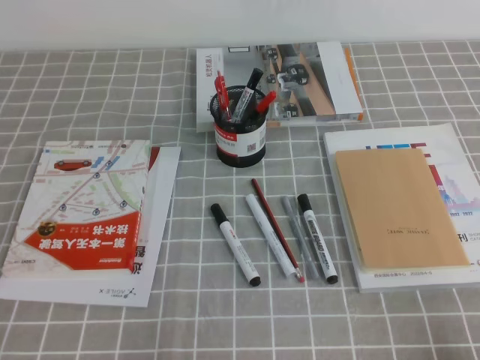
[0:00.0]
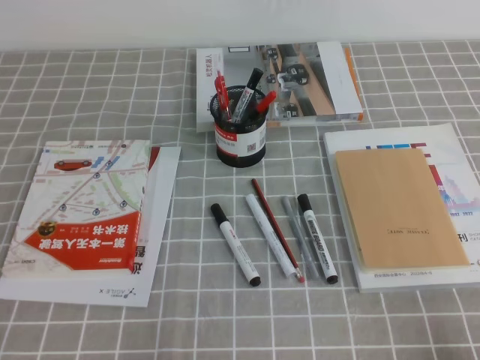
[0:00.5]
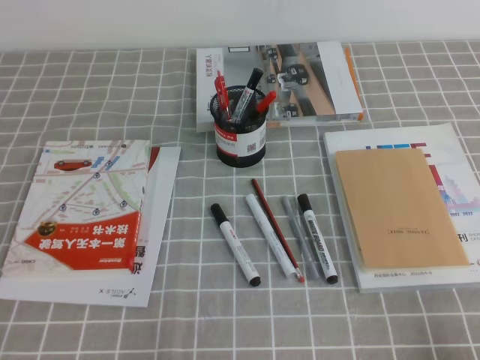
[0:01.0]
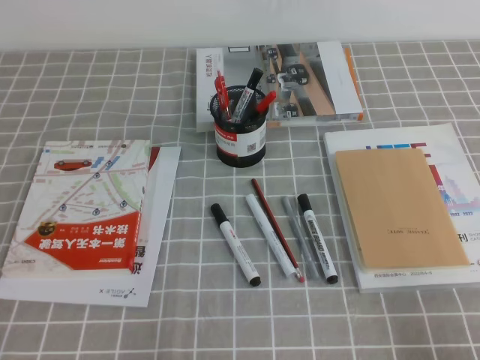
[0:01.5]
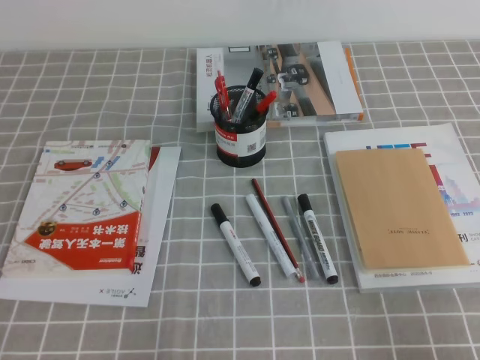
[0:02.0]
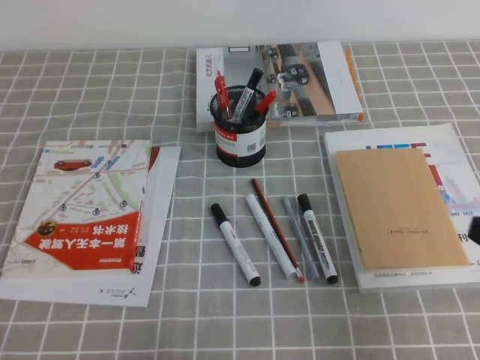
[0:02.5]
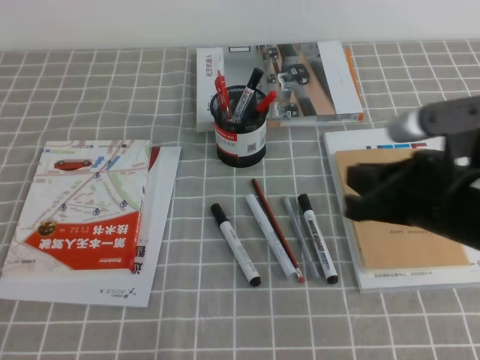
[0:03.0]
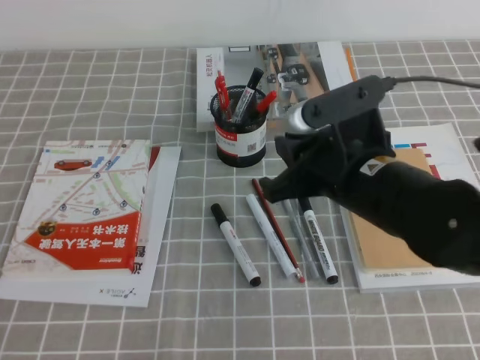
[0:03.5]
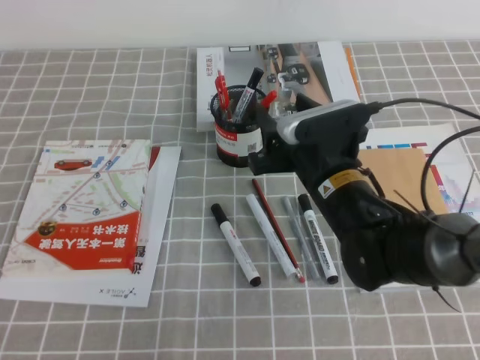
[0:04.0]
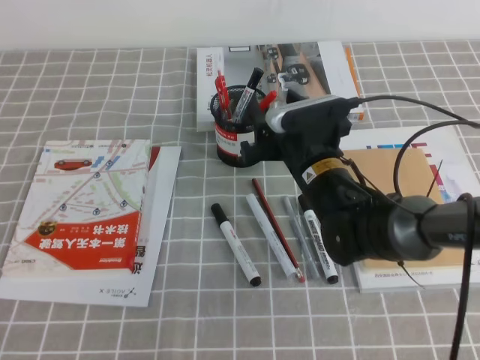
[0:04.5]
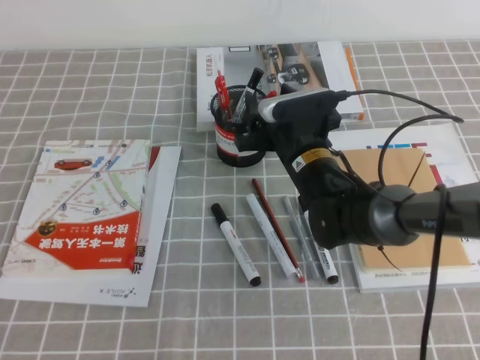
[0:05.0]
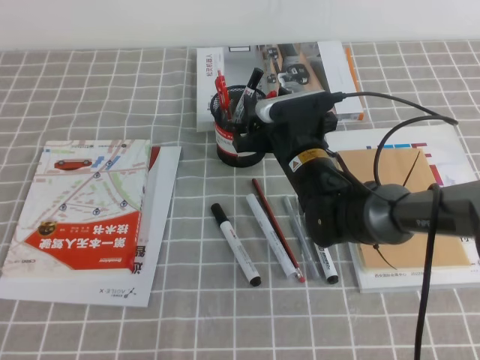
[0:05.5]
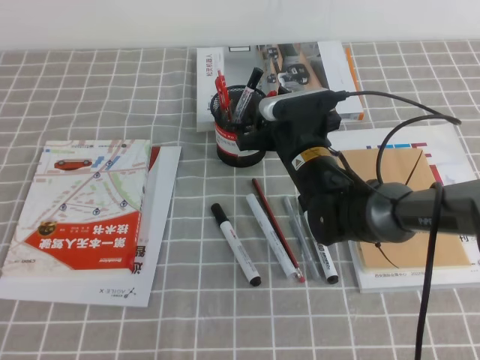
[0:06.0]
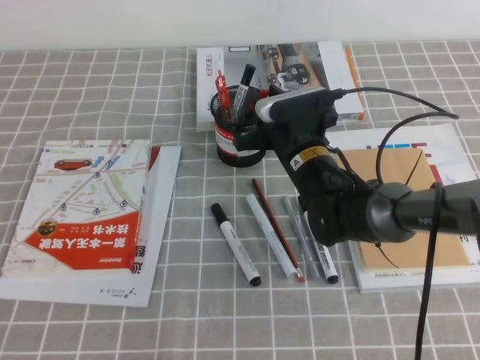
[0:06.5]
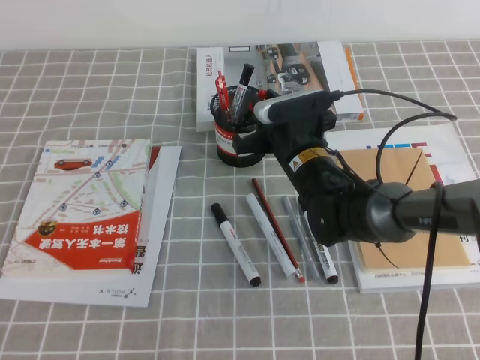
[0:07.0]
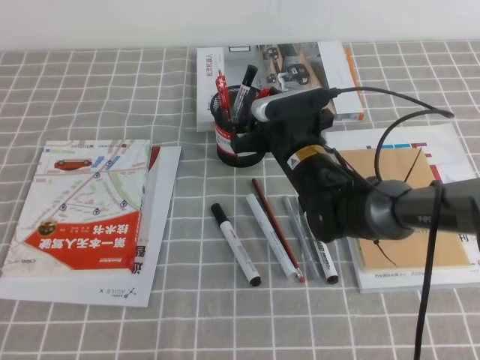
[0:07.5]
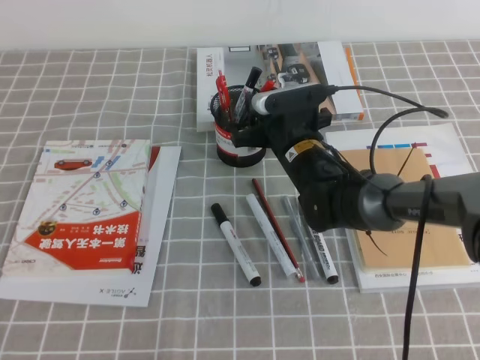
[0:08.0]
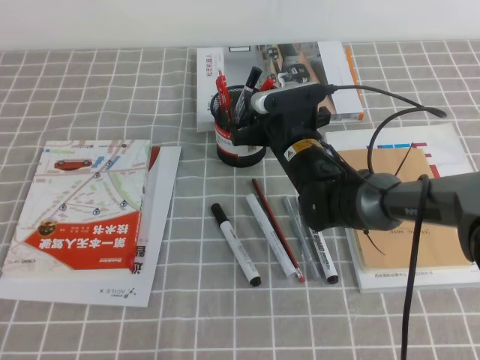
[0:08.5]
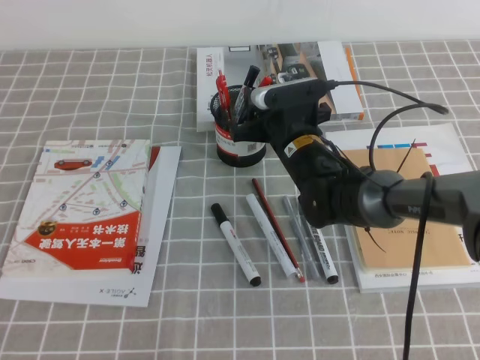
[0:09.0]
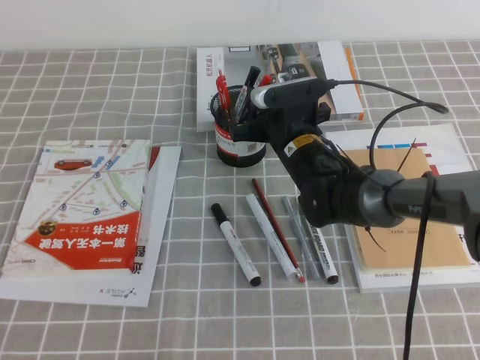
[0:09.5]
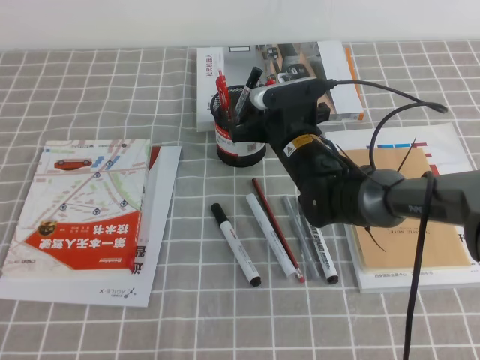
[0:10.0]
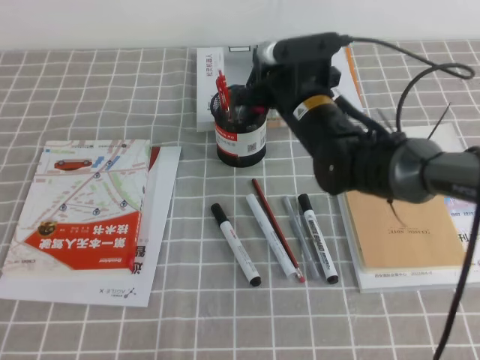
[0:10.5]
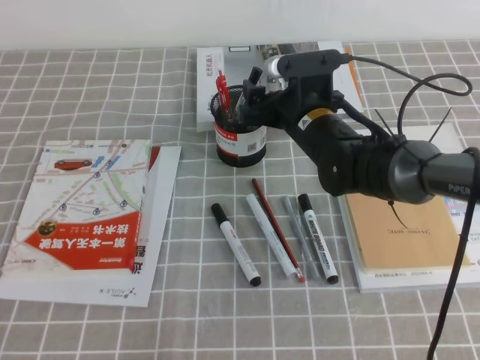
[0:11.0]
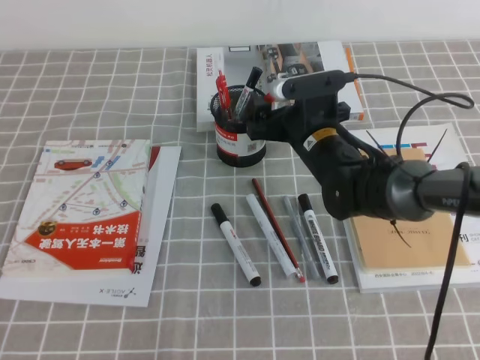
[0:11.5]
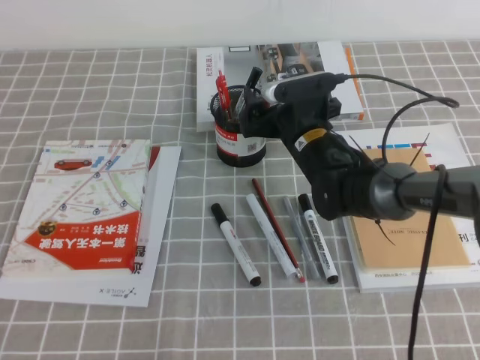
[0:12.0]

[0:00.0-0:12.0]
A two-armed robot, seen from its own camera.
0:02.0 to 0:04.0: The right gripper shifts approximately 35 cm forward and to the left, and opens up.
0:04.0 to 0:06.0: The right gripper heads forward, covering some 10 cm.
0:06.0 to 0:08.0: There are only small adjustments of the grippers.
0:08.0 to 0:10.0: The right gripper closes.
0:10.0 to 0:12.0: The right gripper opens up.

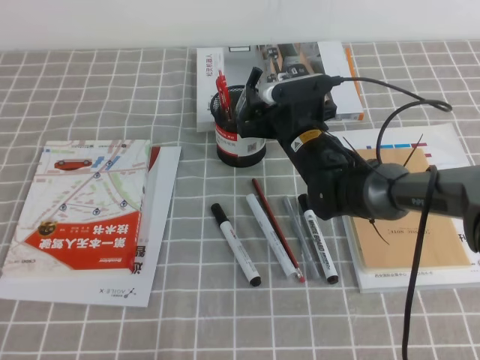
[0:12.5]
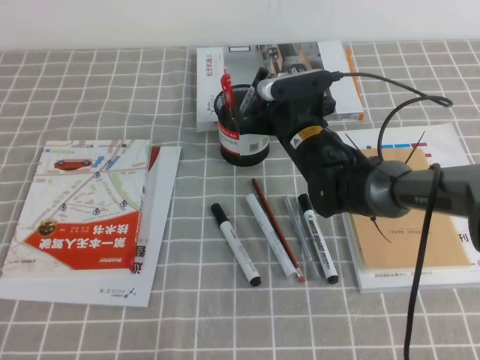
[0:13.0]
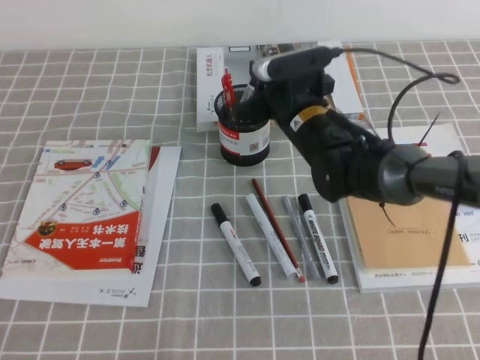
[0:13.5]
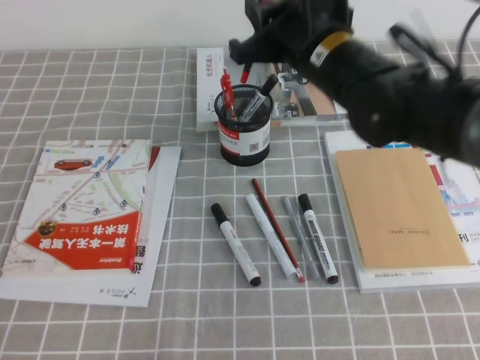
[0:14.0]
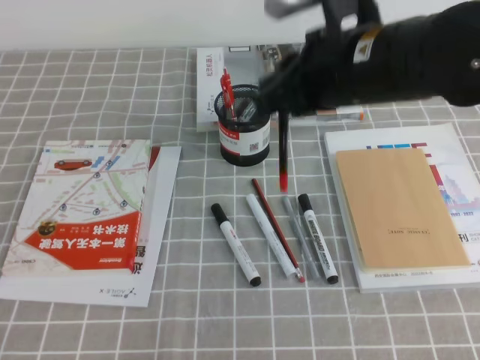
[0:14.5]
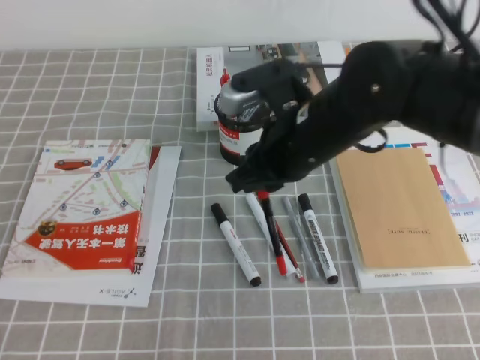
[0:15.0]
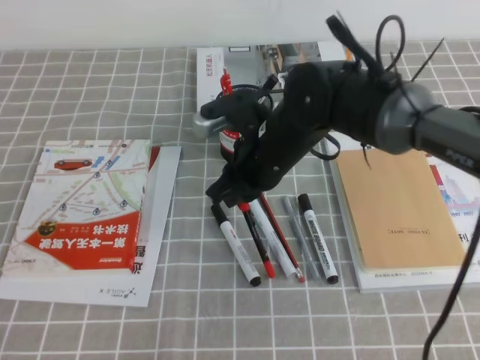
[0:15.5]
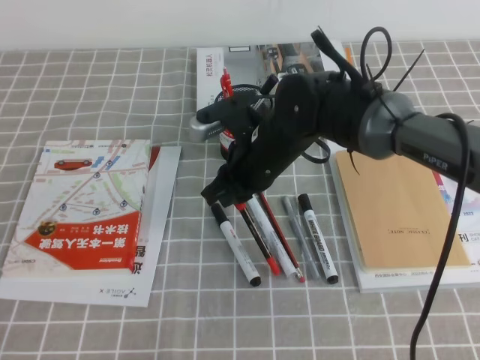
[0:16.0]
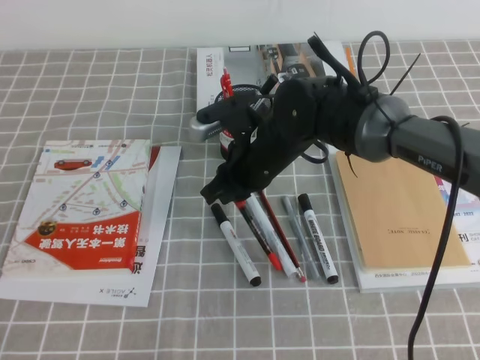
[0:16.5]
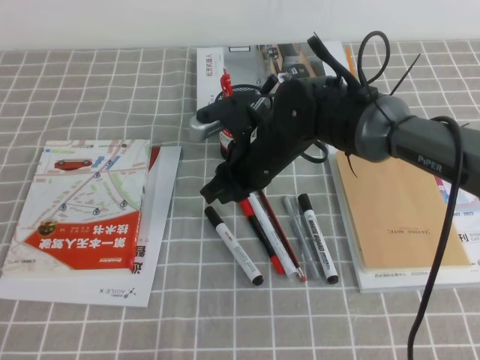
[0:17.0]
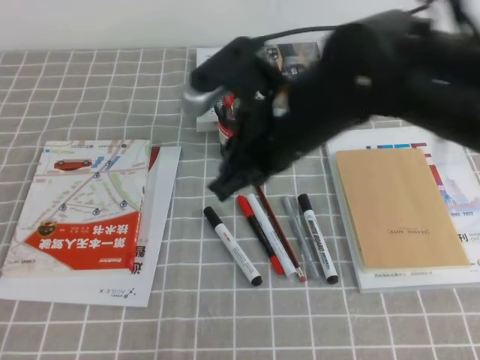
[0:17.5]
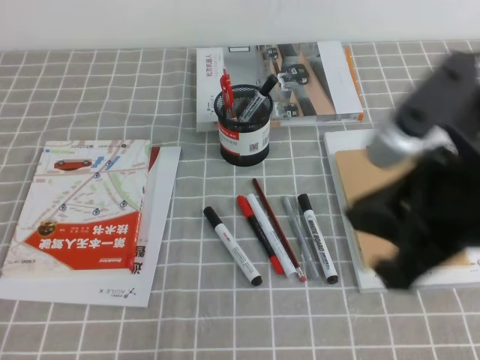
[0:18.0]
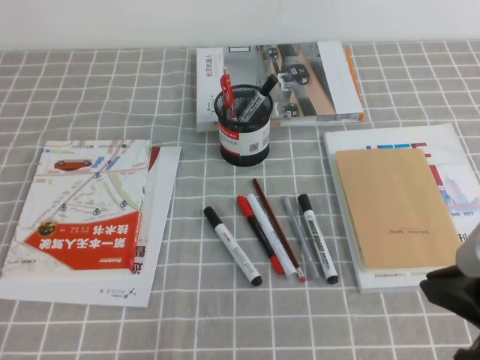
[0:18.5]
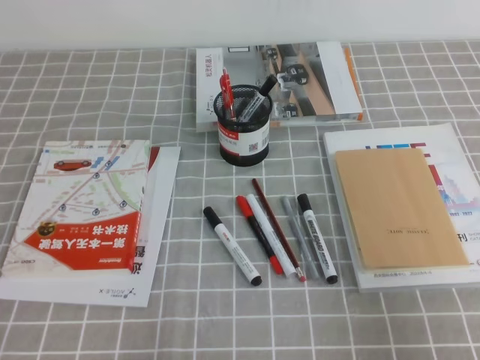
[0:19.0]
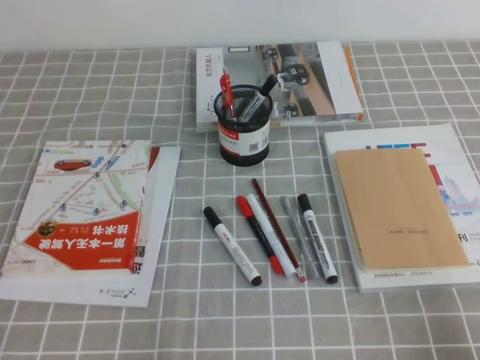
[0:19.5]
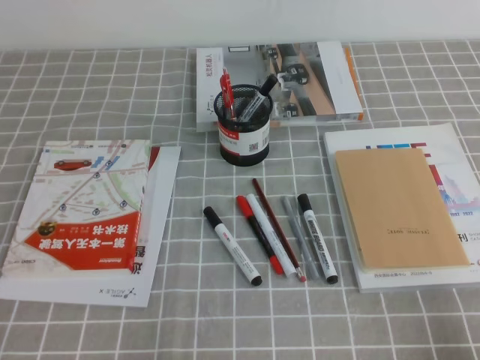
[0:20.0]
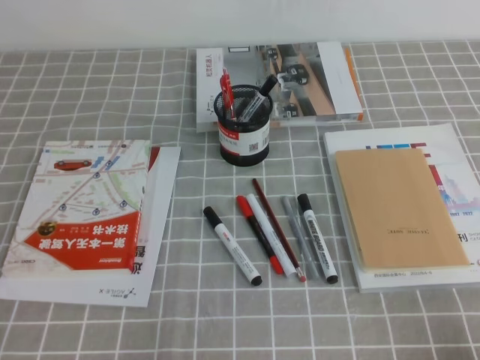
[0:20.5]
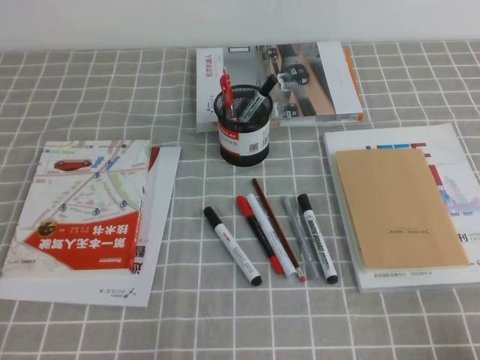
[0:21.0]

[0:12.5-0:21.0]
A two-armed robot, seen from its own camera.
Step, 0:12.5 to 0:21.0: Pick up the pen from the pen holder.
0:12.5 to 0:14.5: The right gripper heads upward and backward, covering about 25 cm, and closes.
0:14.5 to 0:16.5: The right gripper goes some 20 cm downward, to the left and forward.
0:16.5 to 0:19.0: The right gripper heads to the right and backward, covering some 35 cm.
0:19.0 to 0:21.0: The right gripper is displaced downward and backward by about 10 cm.

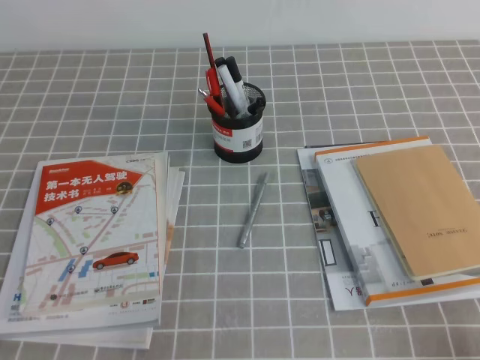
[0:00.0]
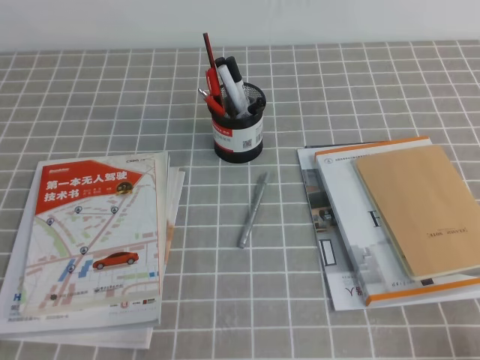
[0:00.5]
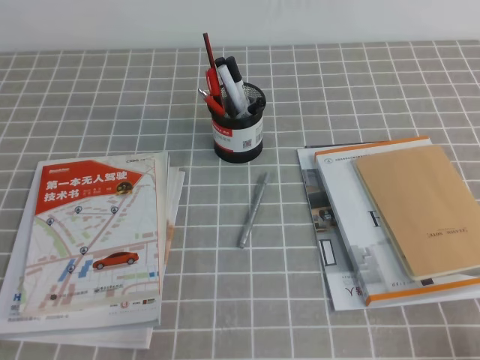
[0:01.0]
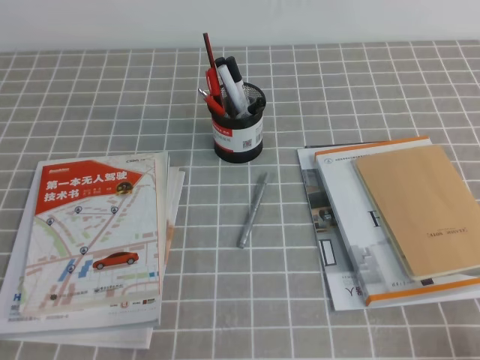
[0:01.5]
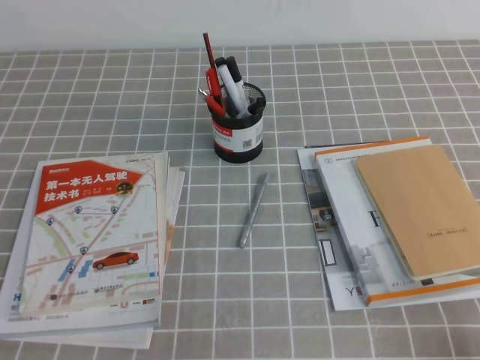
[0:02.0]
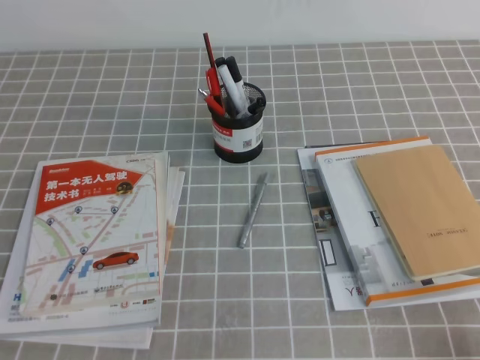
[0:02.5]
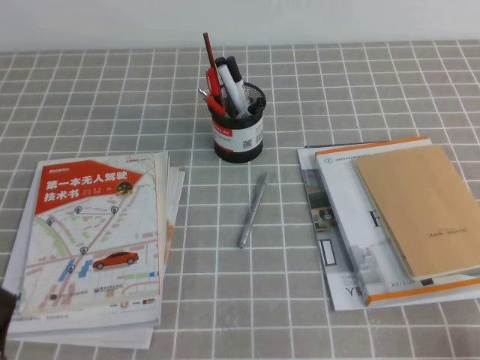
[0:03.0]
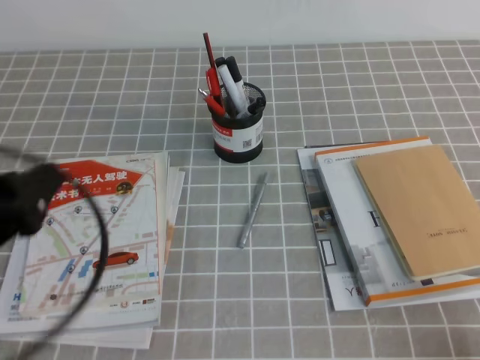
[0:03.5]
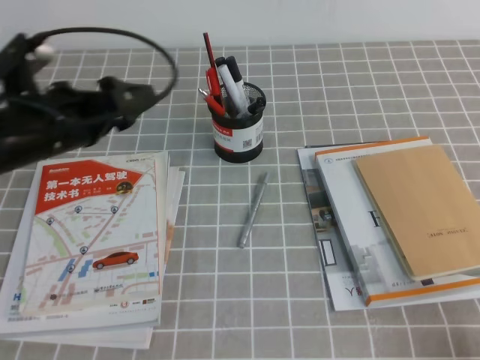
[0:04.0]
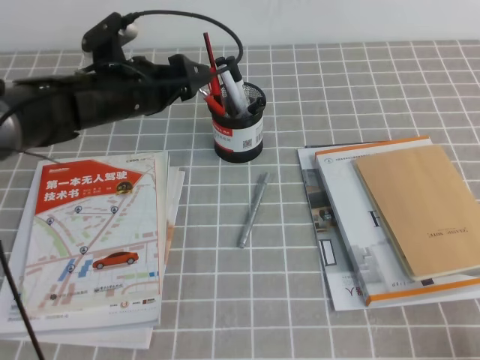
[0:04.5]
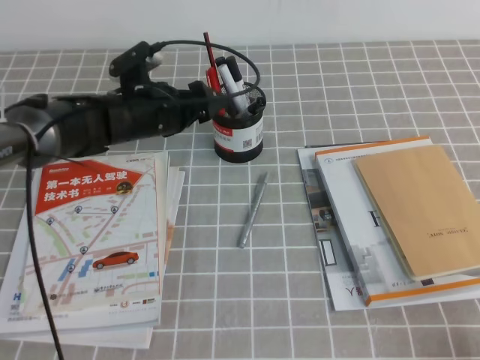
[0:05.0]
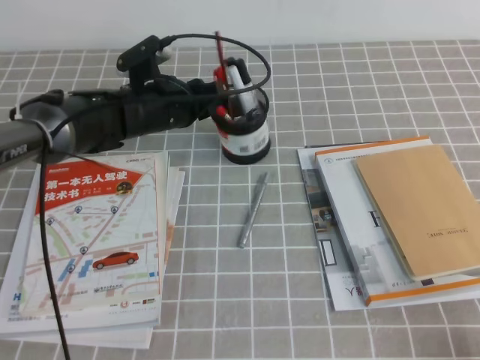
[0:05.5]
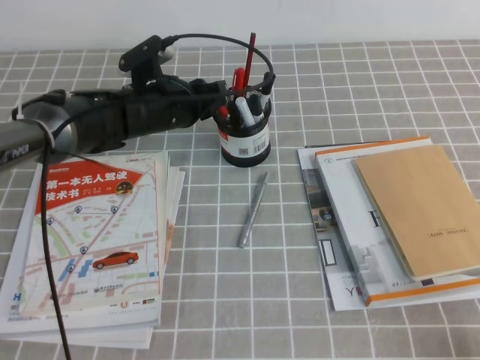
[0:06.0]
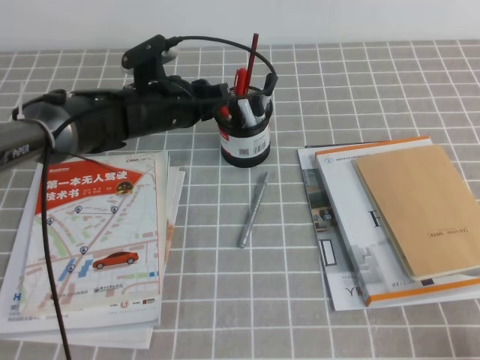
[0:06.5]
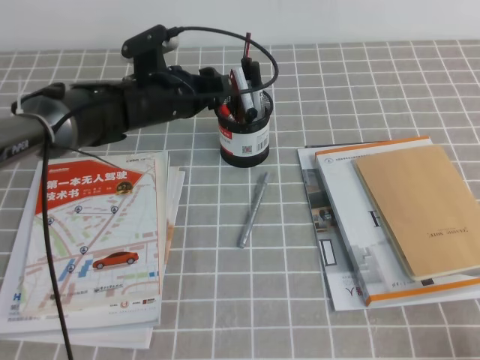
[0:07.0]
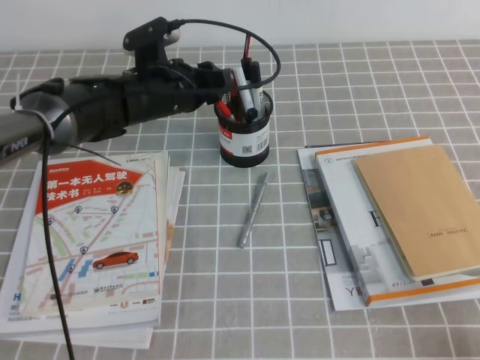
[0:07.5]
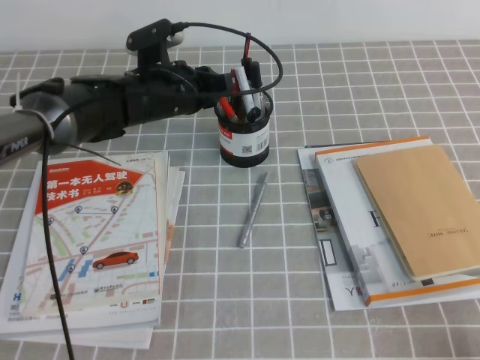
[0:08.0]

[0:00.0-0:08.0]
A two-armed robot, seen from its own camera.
0:02.0 to 0:04.0: The left gripper goes about 25 cm forward and upward, and opens up.
0:04.0 to 0:06.0: The left gripper moves forward, to the right and downward, some 20 cm, and closes its fingers.
0:06.0 to 0:08.0: The left gripper opens, then closes once more.
